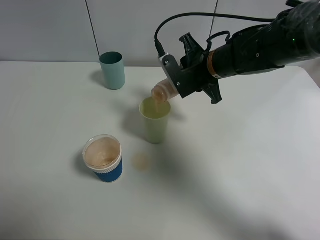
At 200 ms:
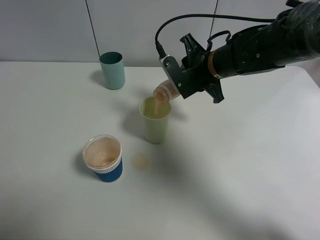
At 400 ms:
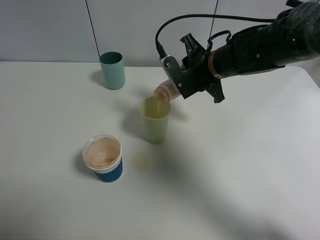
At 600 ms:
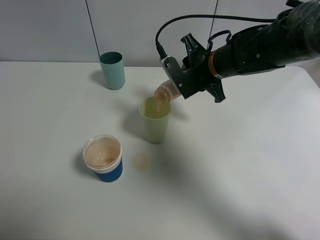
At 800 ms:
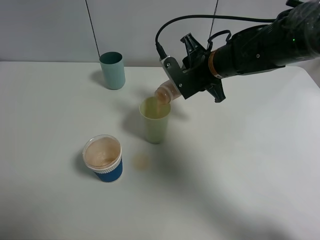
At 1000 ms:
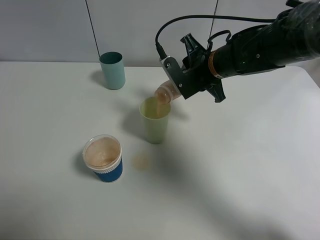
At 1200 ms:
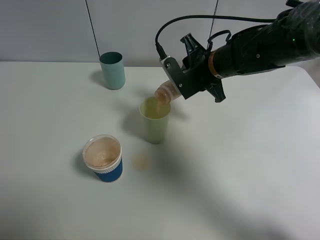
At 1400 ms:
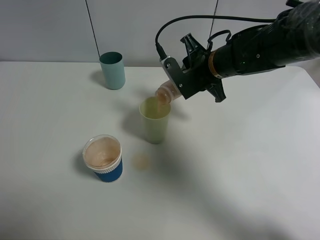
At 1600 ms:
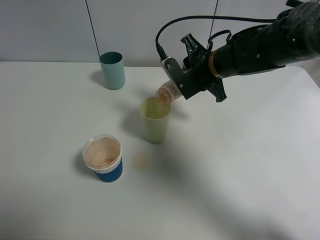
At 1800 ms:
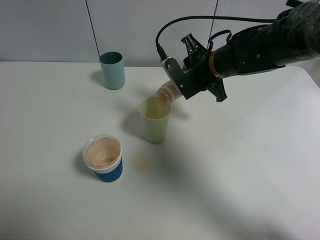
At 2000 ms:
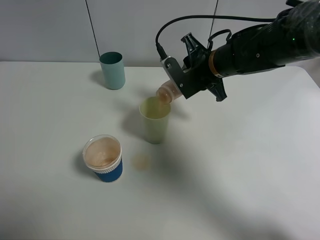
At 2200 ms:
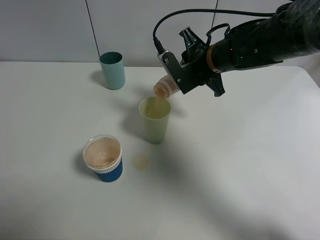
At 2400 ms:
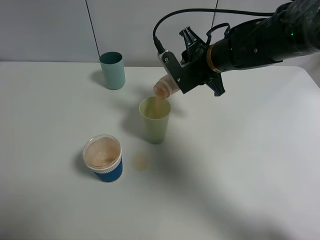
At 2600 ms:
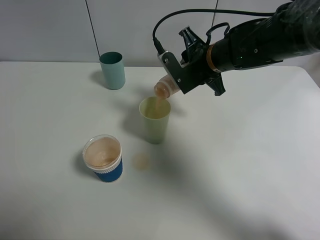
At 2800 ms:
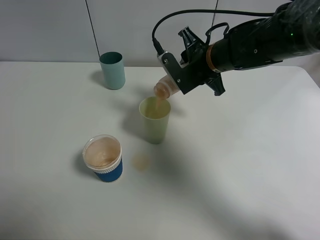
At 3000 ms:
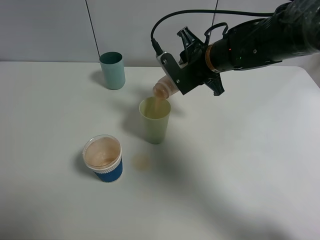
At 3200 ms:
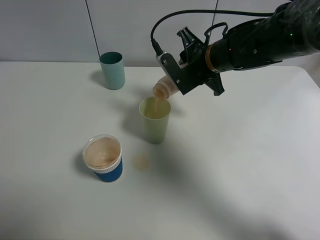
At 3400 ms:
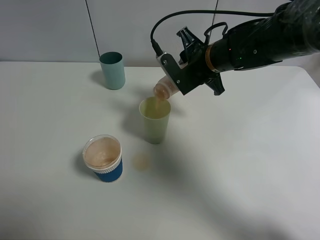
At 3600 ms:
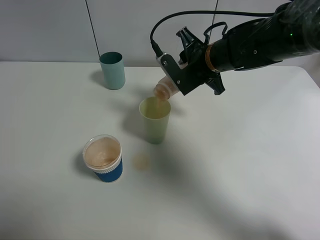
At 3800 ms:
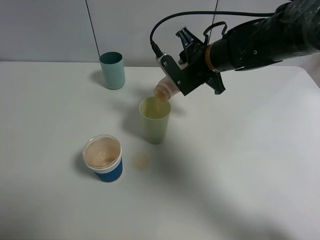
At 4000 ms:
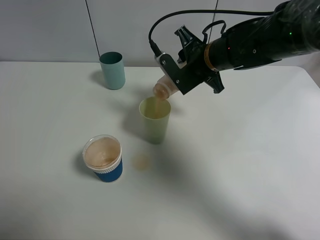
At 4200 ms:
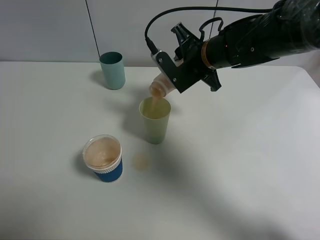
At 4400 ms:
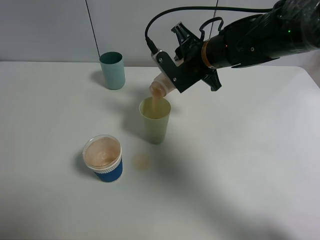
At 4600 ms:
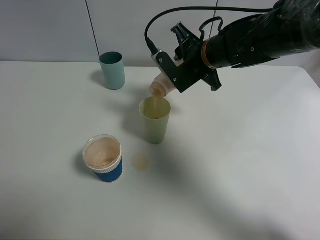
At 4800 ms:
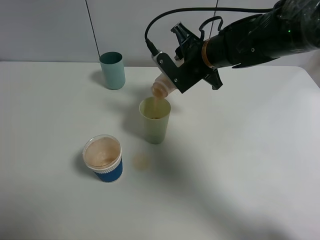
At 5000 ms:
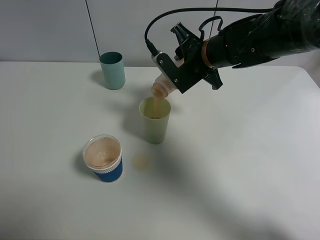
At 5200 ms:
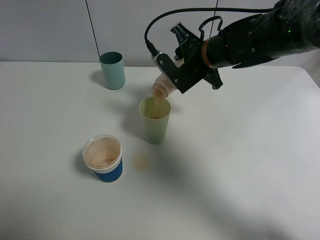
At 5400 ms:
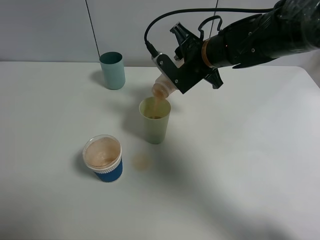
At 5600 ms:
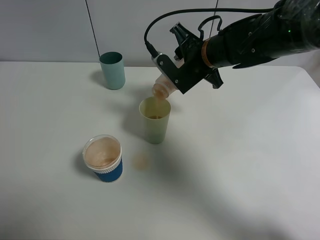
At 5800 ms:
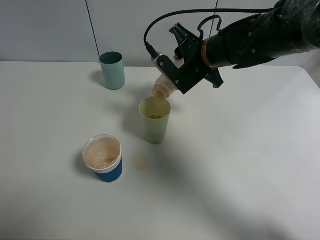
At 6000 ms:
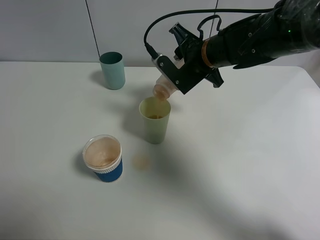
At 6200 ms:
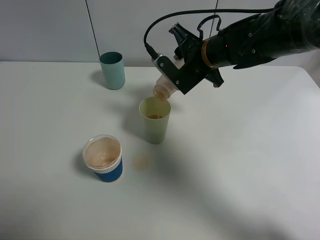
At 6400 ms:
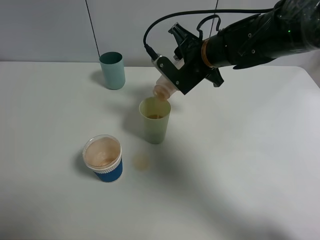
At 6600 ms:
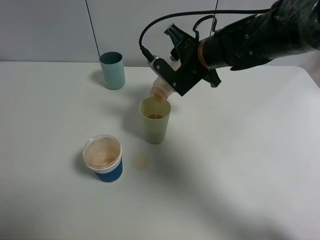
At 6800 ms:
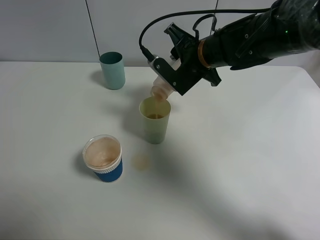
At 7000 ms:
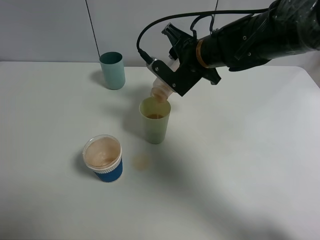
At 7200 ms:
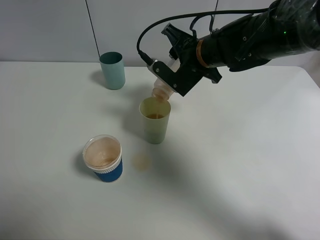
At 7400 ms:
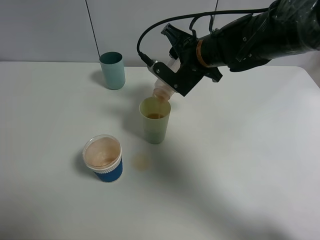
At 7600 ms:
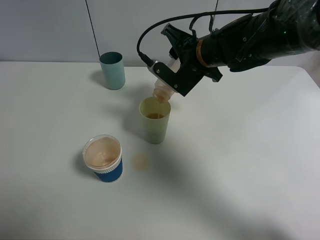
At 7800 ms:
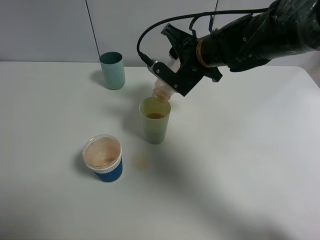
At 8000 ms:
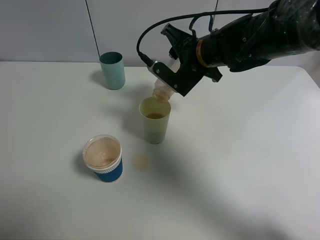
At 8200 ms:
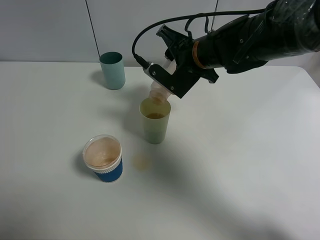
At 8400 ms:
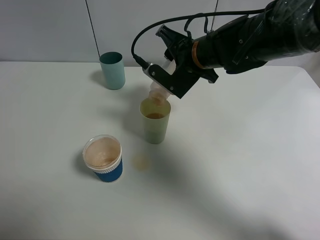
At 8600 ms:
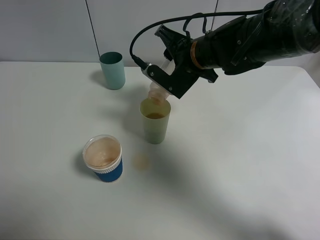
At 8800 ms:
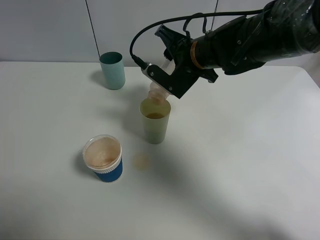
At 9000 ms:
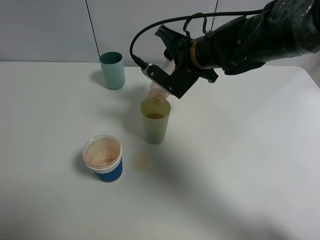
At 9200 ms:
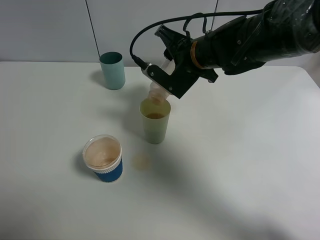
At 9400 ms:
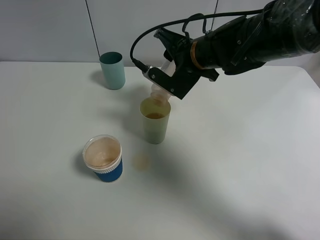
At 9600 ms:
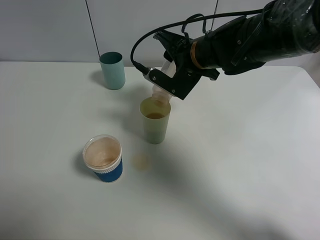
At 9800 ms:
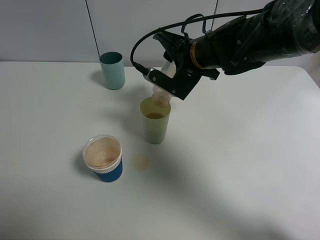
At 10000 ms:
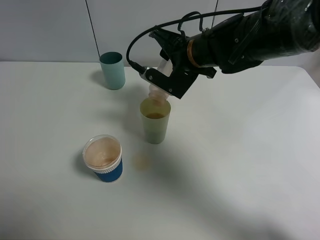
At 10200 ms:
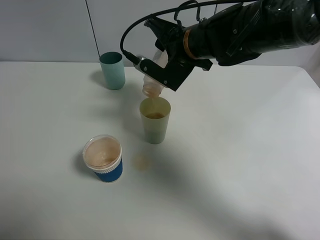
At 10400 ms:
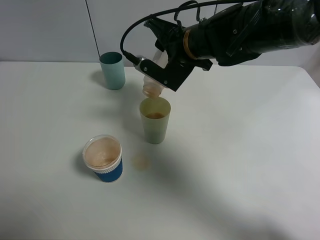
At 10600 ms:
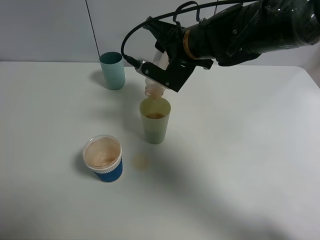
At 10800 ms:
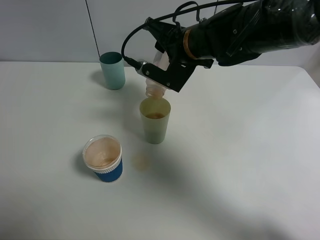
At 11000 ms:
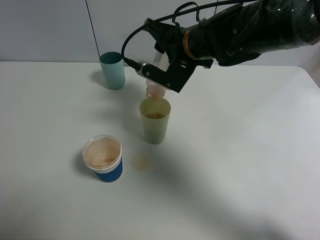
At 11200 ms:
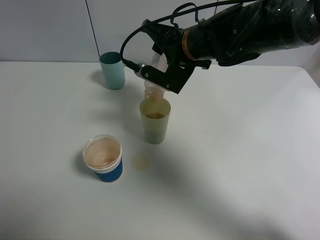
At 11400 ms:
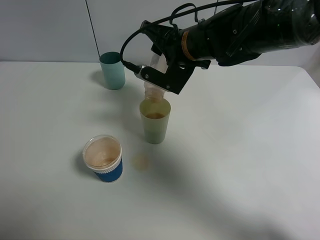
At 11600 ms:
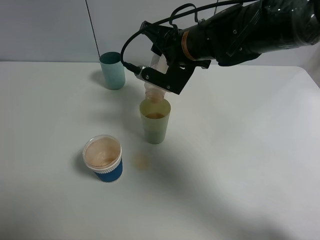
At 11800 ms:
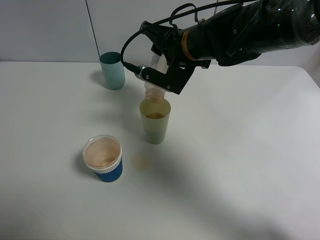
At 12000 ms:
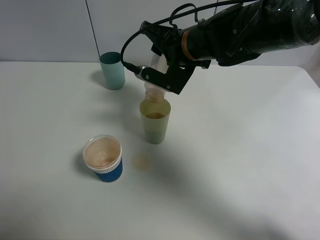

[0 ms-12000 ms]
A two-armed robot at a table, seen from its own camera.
Task of the whole recording: use a clamp to hold the bottle of the drink, pour the beverage into a random cup, then clamp the cup containing the drink and pour the drink into another random cup.
0 ms to 1600 ms: Neither gripper changes place.
1600 ms to 3000 ms: Neither gripper changes place.
3000 ms to 4400 ms: Both grippers stay about where they are.
4400 ms to 7600 ms: The grippers stay close to where they were, moving slightly.
7600 ms to 9000 ms: Both grippers stay about where they are.
9000 ms to 12000 ms: The grippers make only small movements.

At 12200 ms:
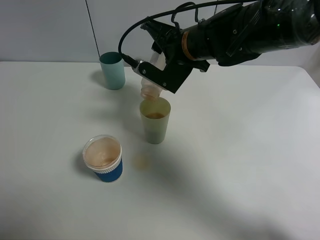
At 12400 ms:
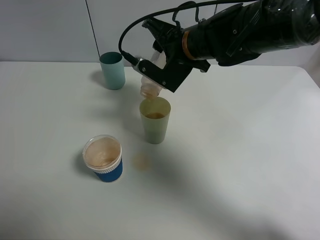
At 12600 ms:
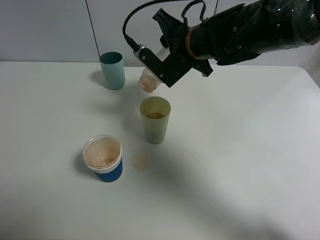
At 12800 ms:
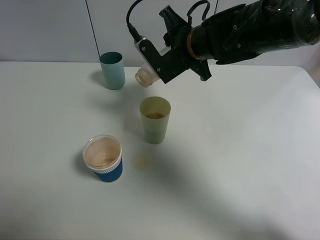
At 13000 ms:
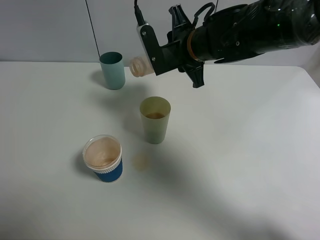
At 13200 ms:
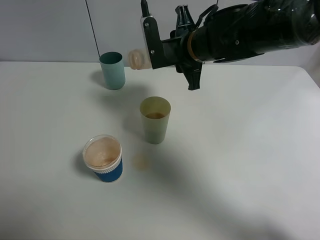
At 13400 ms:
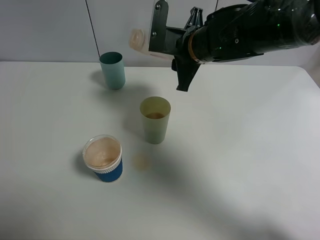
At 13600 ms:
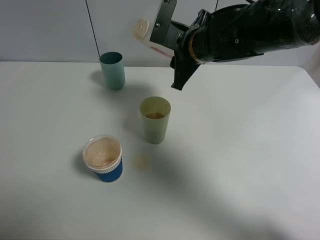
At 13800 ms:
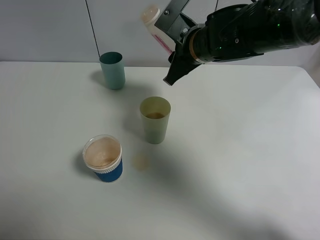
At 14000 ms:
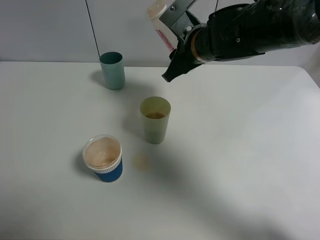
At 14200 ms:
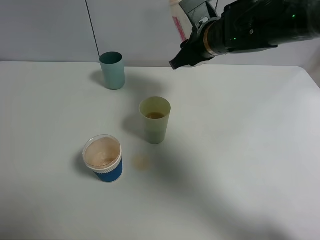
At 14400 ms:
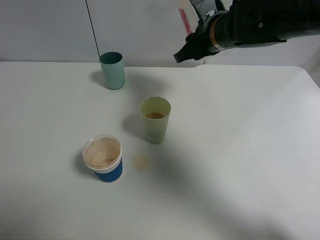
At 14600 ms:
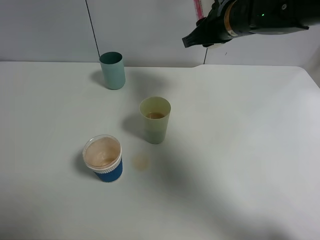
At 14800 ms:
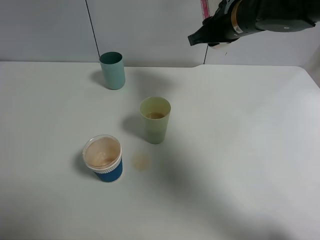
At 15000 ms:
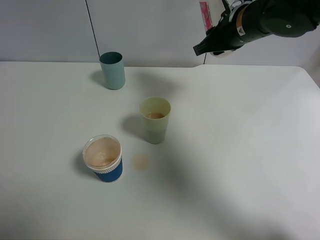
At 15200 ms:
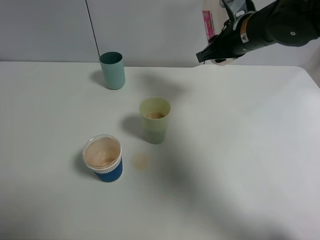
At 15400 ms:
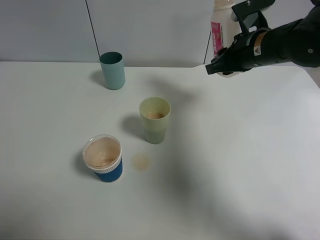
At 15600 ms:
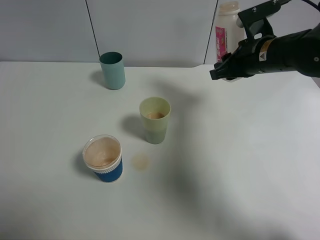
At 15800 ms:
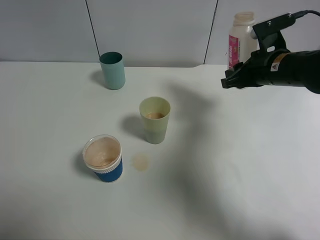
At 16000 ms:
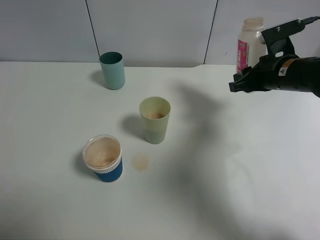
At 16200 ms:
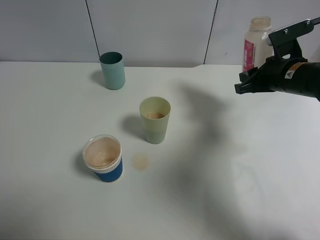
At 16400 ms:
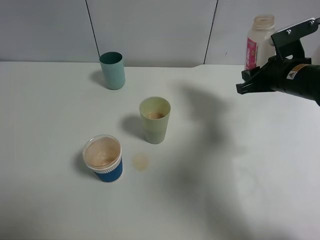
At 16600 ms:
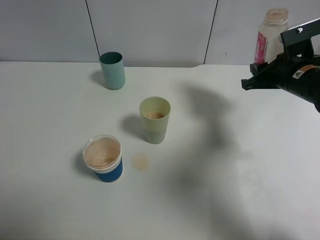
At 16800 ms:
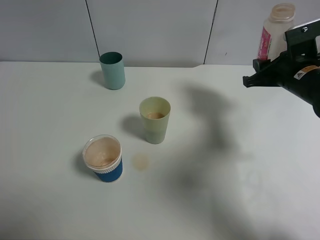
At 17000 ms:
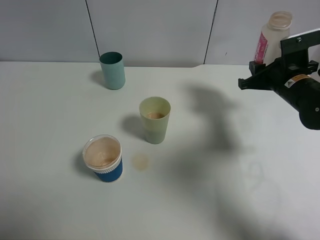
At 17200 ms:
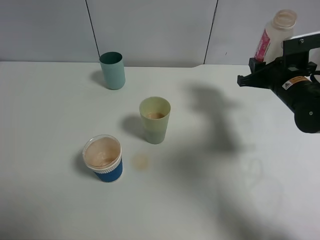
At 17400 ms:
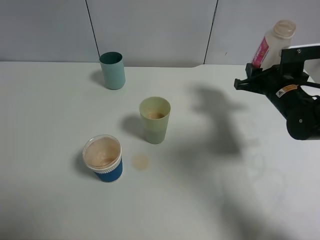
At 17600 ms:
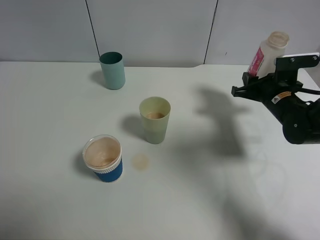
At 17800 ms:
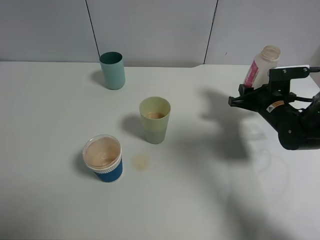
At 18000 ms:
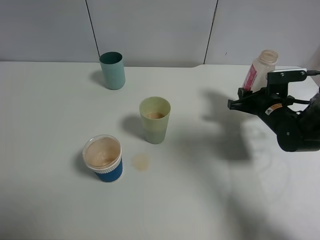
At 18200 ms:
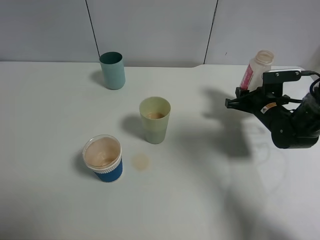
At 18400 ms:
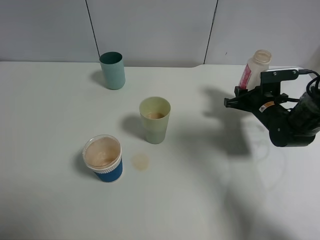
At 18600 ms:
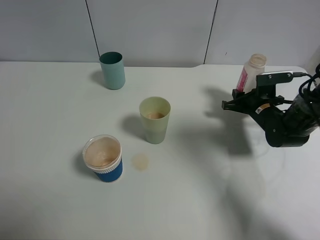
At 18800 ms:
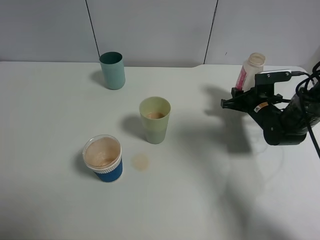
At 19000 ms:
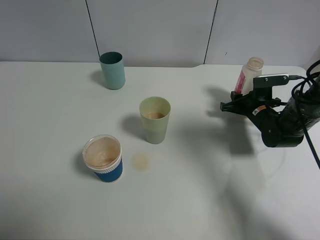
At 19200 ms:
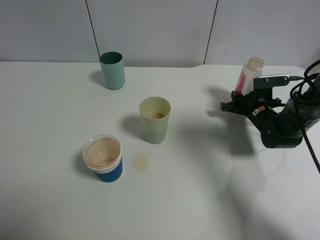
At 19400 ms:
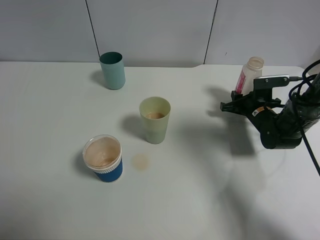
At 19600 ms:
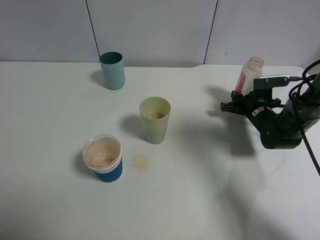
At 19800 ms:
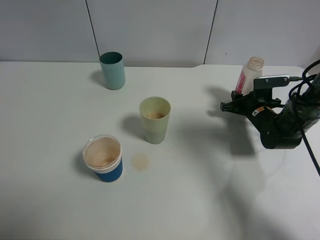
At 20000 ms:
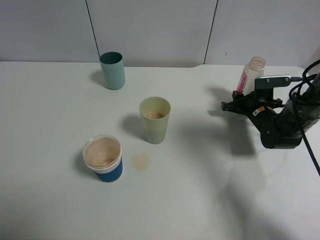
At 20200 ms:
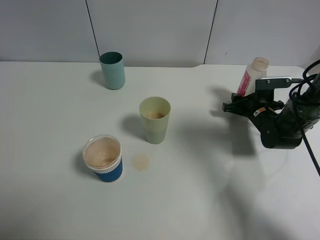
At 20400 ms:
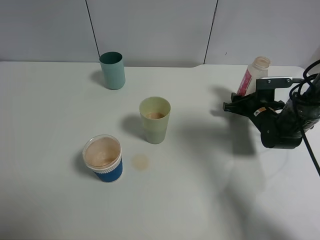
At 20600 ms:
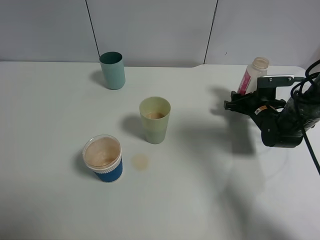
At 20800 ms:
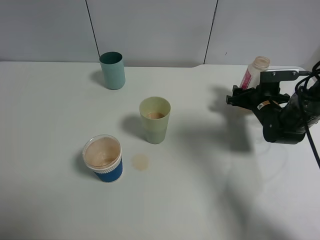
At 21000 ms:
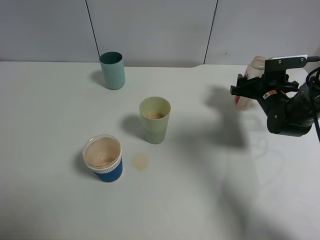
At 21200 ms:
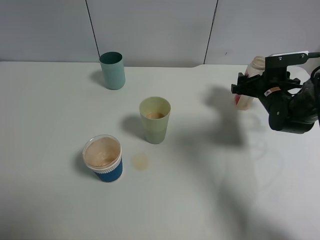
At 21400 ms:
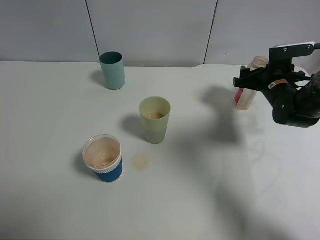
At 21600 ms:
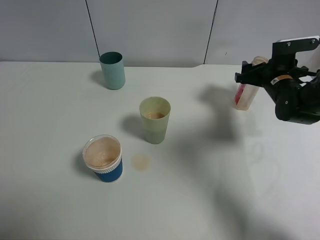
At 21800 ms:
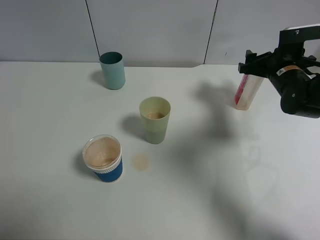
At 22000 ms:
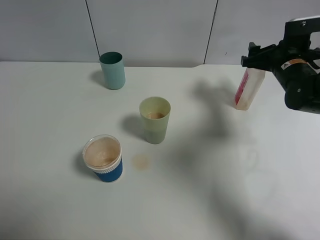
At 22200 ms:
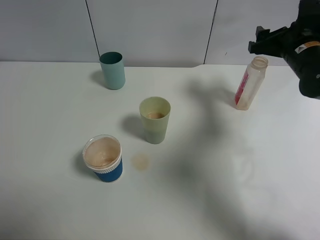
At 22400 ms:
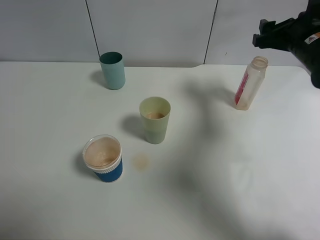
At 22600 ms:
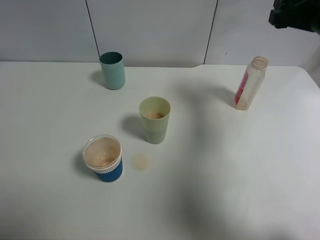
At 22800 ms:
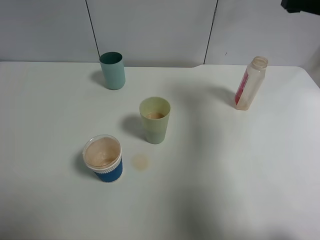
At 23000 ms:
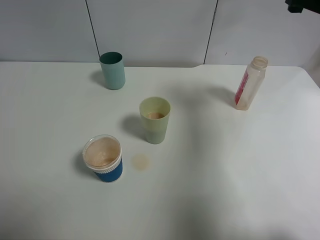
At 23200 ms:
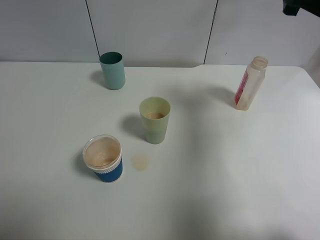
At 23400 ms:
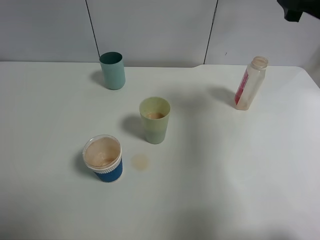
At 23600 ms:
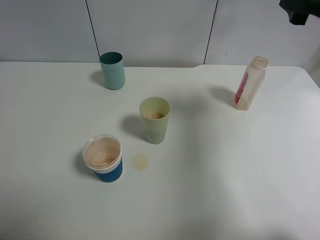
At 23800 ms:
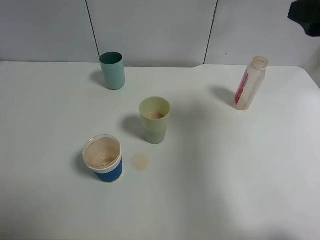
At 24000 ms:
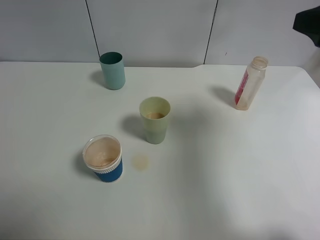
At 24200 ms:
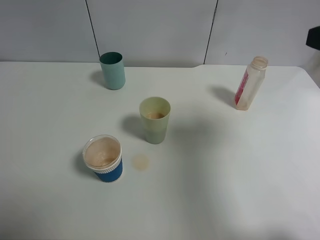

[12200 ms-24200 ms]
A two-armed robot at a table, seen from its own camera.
Task of the whole recording: use a clamp to hold the bottle of the drink, pour the beverage into a random cup, then clamp the cup containing the drink and pour the drink into another random cup.
Step, 13200 ms to 21200 ms: Place the drink bottle on the table with right gripper.
13800 ms to 15200 ms: The right gripper heads to the right, covering roughly 10 cm.
15200 ms to 16600 ms: The right gripper heads to the right and downward, covering approximately 10 cm.
16600 ms to 18200 ms: The right gripper heads downward, covering some 10 cm.
18200 ms to 19800 ms: There are only small adjustments of the grippers.
19800 ms to 21200 ms: The right gripper moves approximately 5 cm, and opens up.
21200 ms to 22600 ms: The right gripper moves upward, roughly 20 cm.
22600 ms to 24200 ms: The right gripper heads backward and upward, covering some 15 cm, and opens up.
